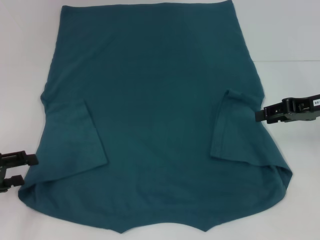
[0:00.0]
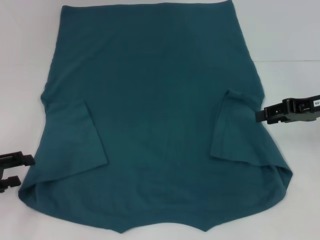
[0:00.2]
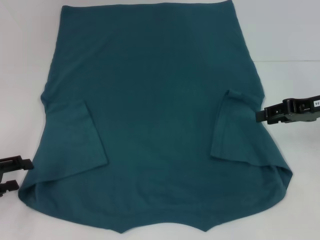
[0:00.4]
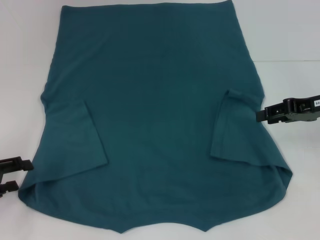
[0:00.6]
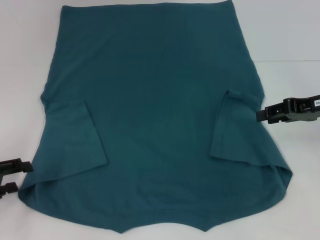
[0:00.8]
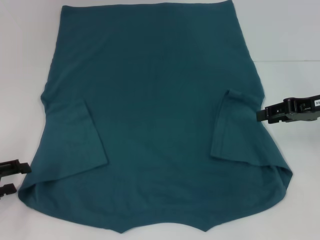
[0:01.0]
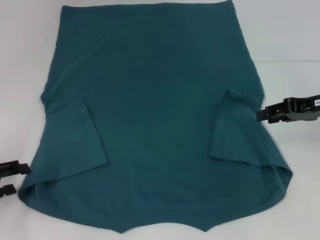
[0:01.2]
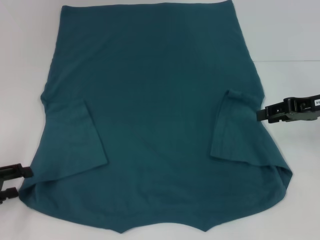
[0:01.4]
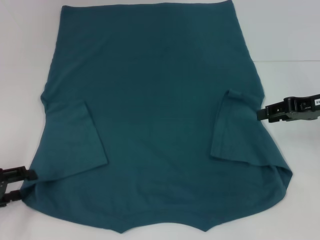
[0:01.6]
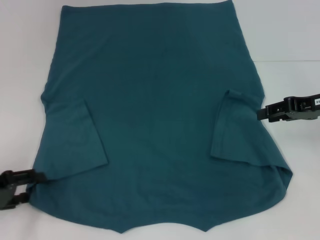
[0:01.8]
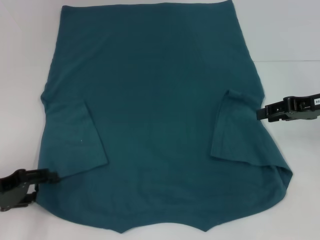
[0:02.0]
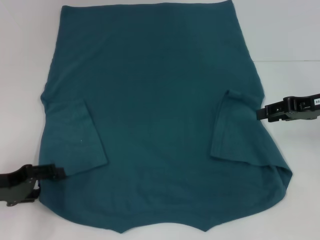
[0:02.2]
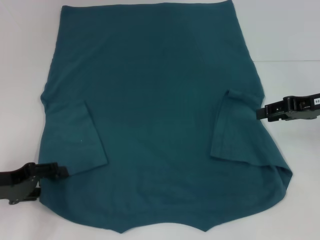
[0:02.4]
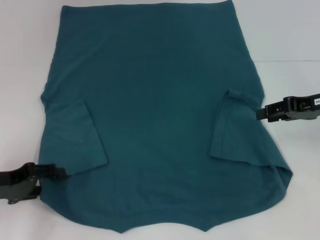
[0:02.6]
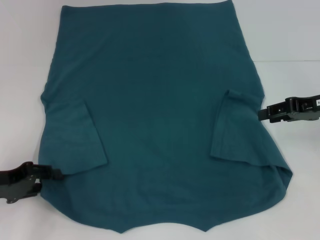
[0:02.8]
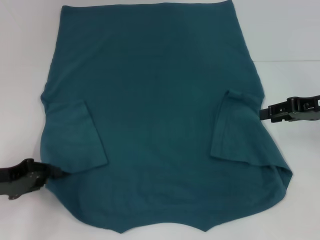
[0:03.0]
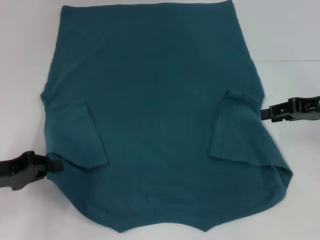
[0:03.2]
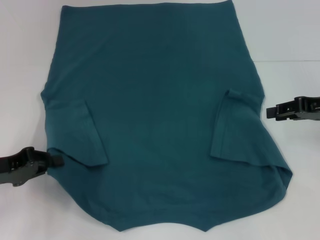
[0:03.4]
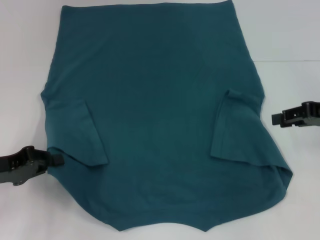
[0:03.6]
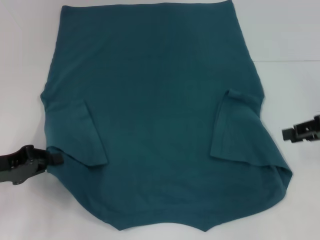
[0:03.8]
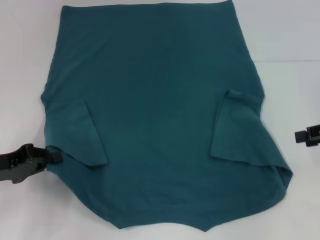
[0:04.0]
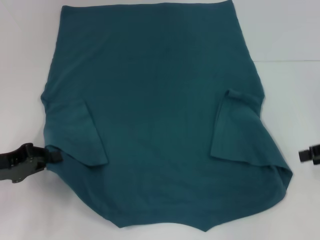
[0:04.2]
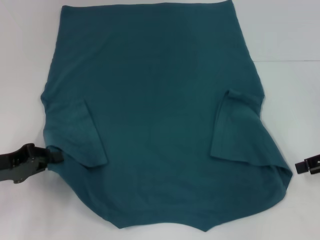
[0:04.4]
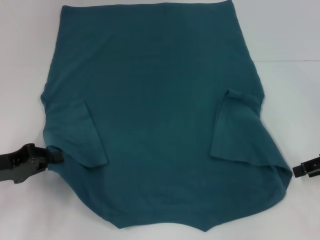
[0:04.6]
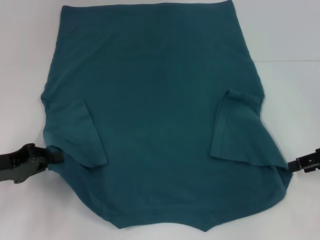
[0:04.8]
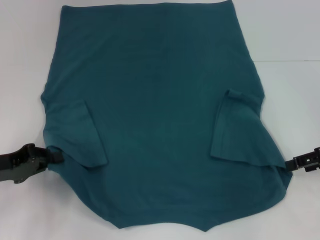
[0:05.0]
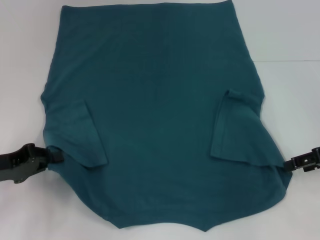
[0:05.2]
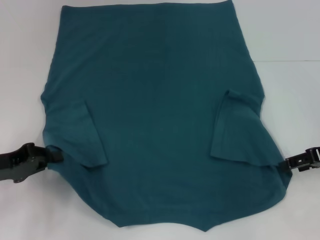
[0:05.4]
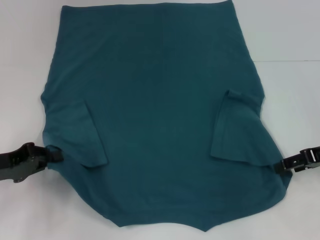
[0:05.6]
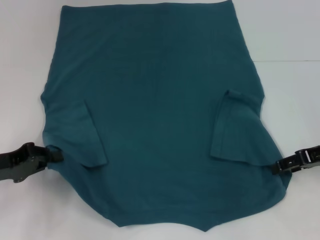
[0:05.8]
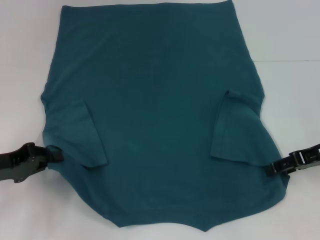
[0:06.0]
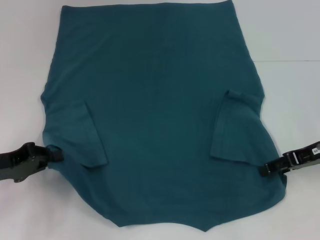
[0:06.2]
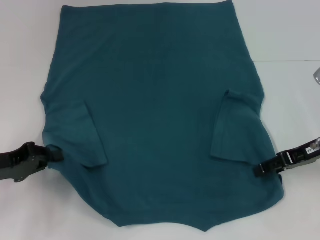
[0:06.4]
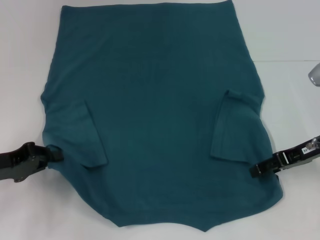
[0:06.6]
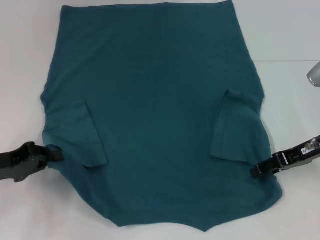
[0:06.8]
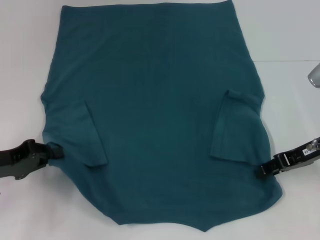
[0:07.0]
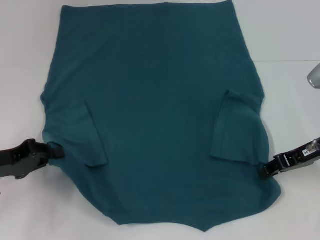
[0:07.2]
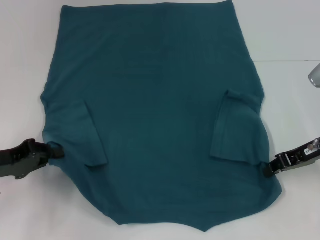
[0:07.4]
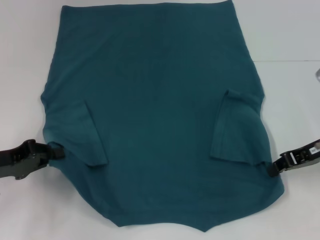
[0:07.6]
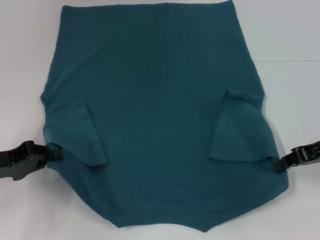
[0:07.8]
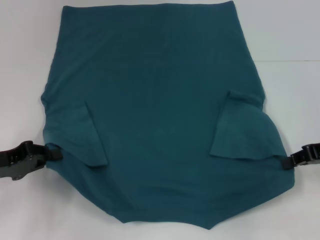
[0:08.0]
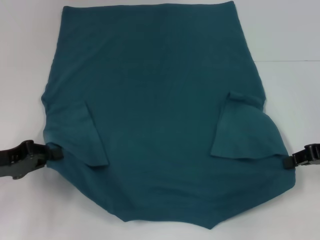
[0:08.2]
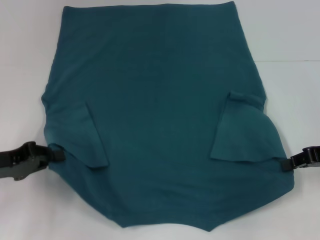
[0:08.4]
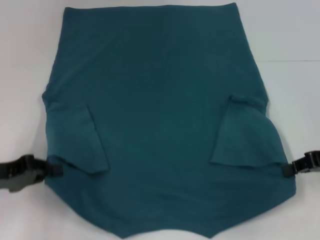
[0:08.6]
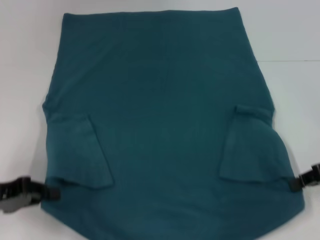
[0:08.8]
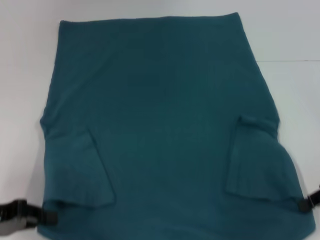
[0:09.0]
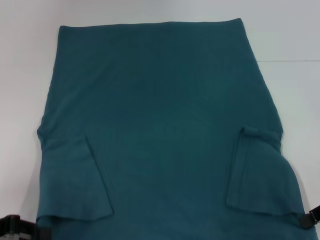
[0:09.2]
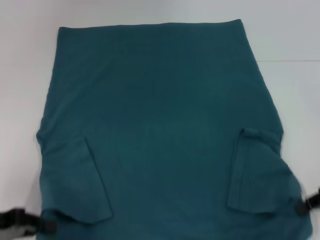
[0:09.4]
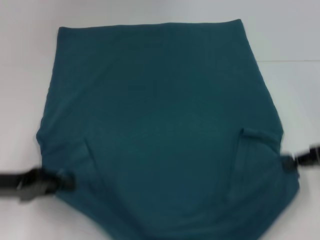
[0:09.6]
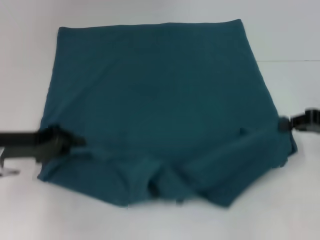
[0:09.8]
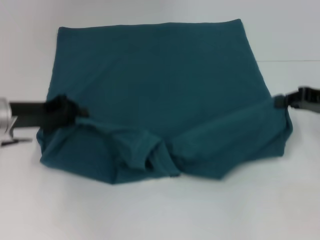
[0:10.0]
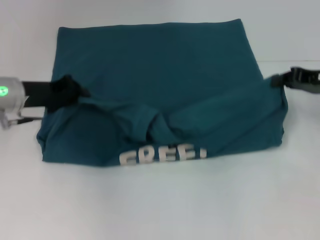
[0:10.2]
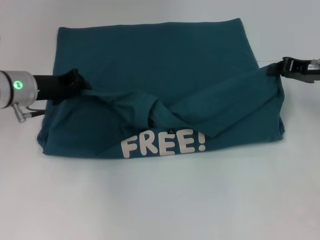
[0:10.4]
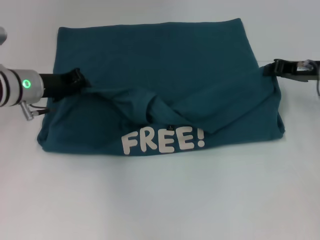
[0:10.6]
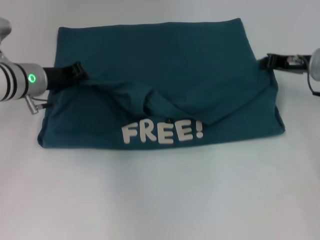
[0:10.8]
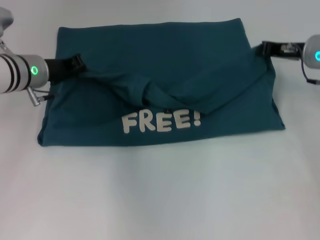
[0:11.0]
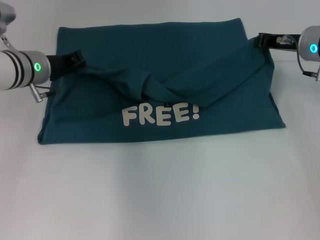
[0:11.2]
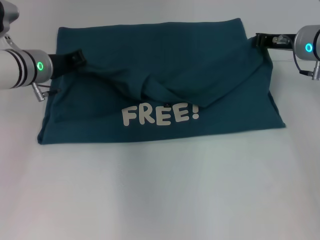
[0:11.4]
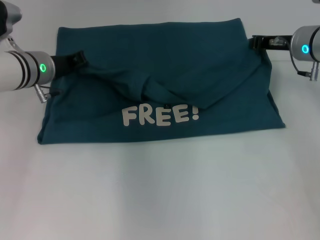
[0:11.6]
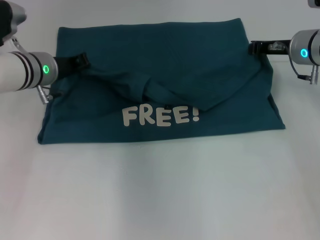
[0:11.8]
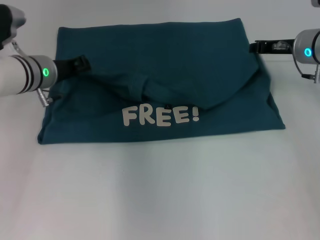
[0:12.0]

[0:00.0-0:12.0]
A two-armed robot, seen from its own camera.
Step, 0:00.0 to 0:03.4: Grab the bottom left corner with your left hand.
Step, 0:03.6 to 0:08.0: Grab the bottom right corner with your right hand.
0:00.0 to 0:03.0: The grippers stay close to where they were, moving slightly.
0:03.0 to 0:04.4: The right gripper shifts by some 5 cm. The left gripper closes.
0:04.4 to 0:06.0: The right gripper goes some 5 cm to the left.
0:06.0 to 0:07.6: The right gripper closes its fingers.
0:07.6 to 0:09.0: The right gripper heads backward, covering approximately 5 cm.
0:09.0 to 0:10.4: The left gripper heads forward and to the right, covering roughly 20 cm. The right gripper travels forward by roughly 10 cm.
0:10.4 to 0:12.0: The right gripper moves to the left and forward, approximately 10 cm.

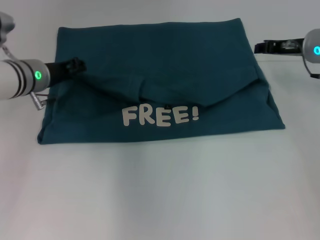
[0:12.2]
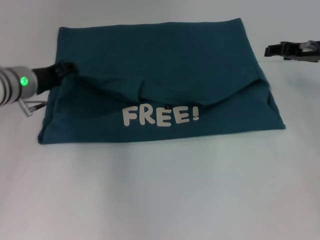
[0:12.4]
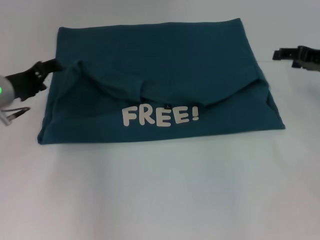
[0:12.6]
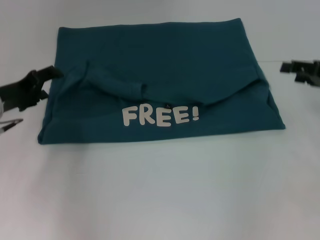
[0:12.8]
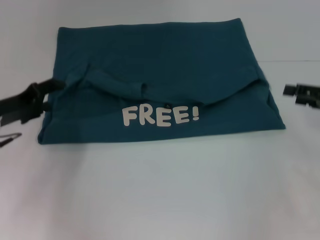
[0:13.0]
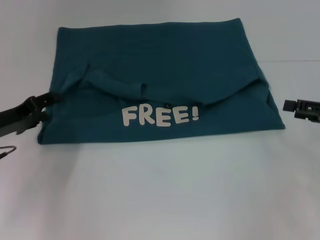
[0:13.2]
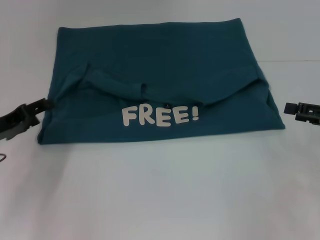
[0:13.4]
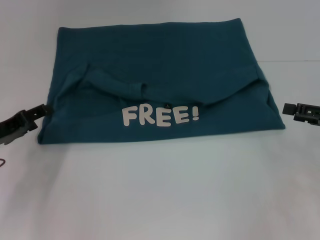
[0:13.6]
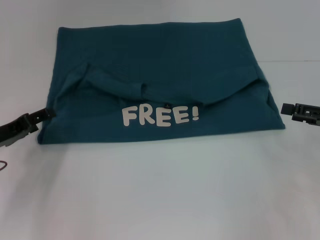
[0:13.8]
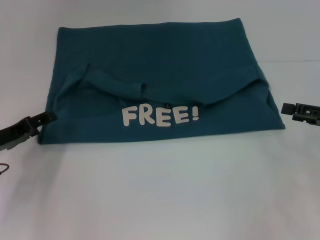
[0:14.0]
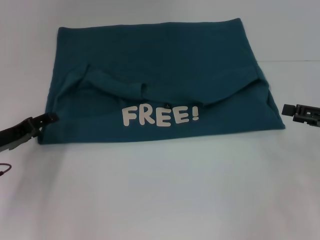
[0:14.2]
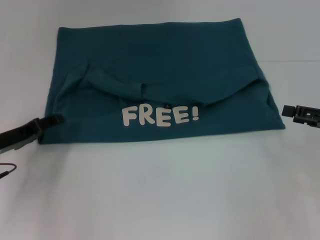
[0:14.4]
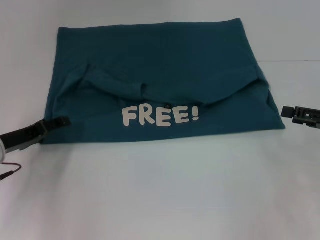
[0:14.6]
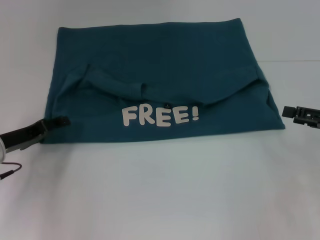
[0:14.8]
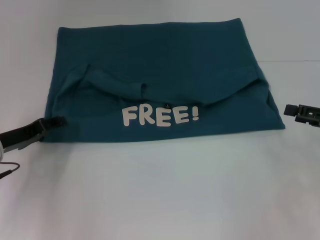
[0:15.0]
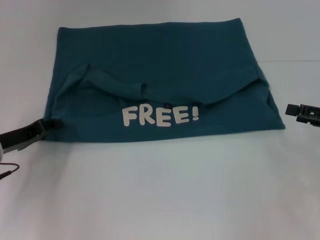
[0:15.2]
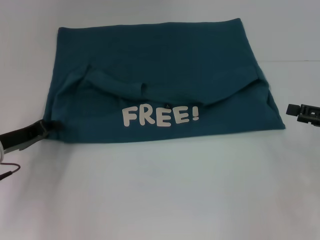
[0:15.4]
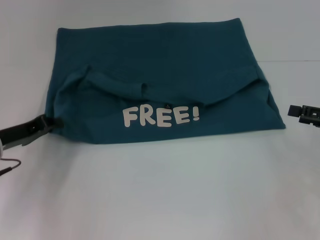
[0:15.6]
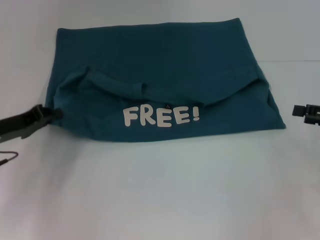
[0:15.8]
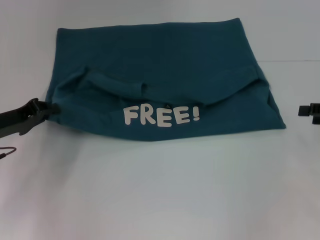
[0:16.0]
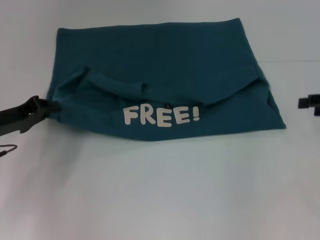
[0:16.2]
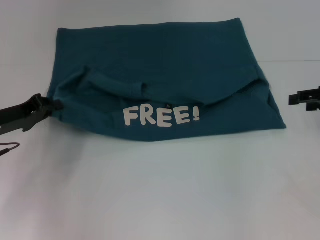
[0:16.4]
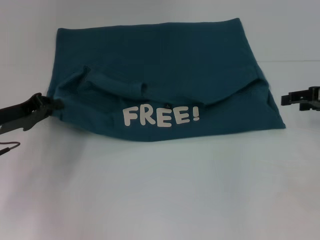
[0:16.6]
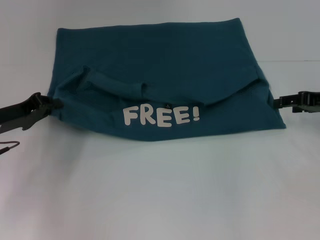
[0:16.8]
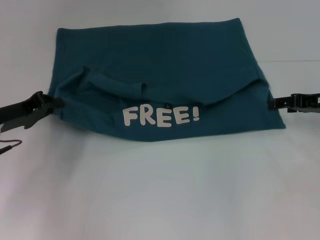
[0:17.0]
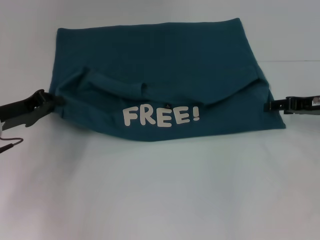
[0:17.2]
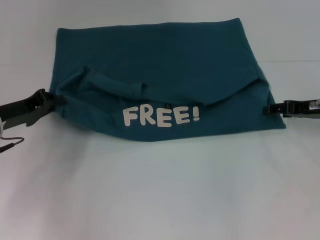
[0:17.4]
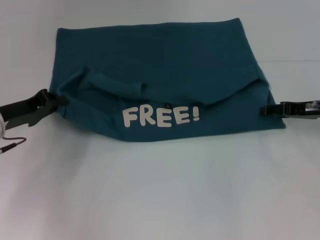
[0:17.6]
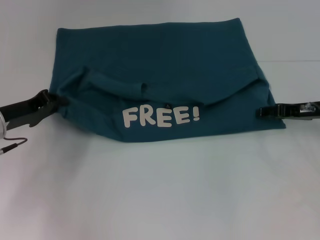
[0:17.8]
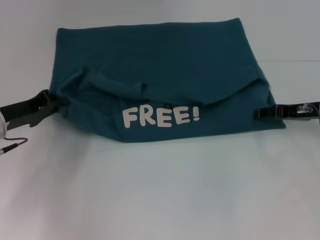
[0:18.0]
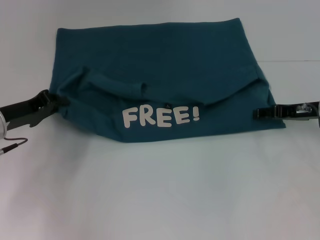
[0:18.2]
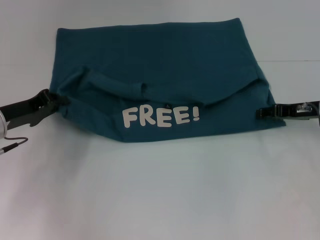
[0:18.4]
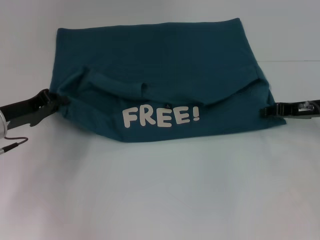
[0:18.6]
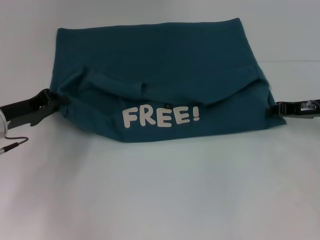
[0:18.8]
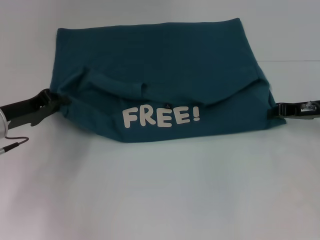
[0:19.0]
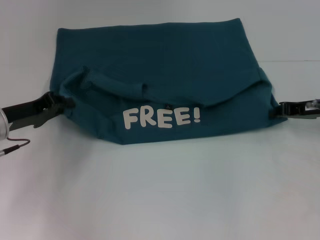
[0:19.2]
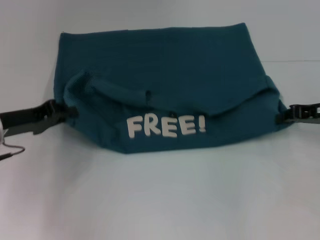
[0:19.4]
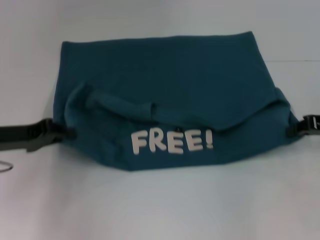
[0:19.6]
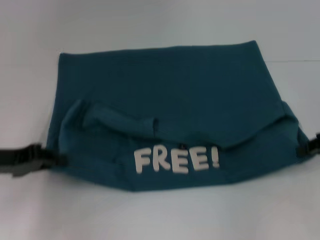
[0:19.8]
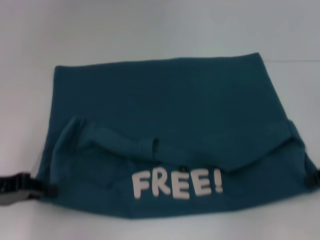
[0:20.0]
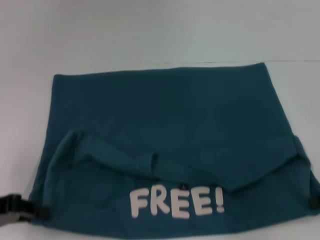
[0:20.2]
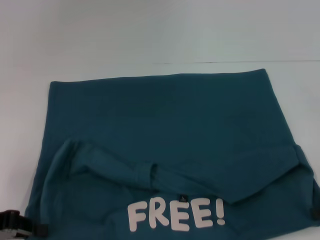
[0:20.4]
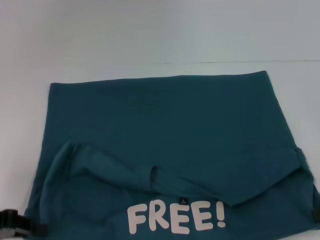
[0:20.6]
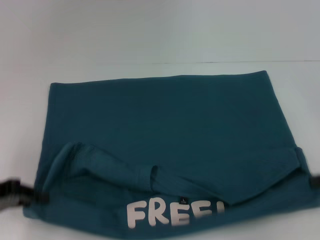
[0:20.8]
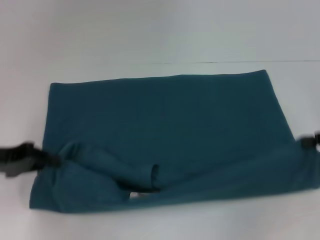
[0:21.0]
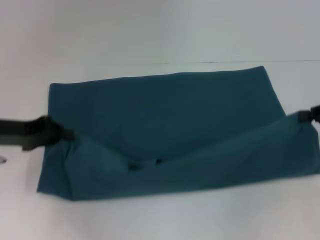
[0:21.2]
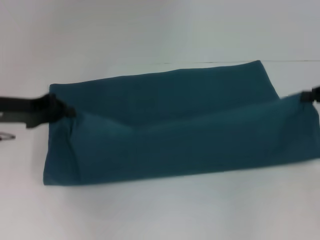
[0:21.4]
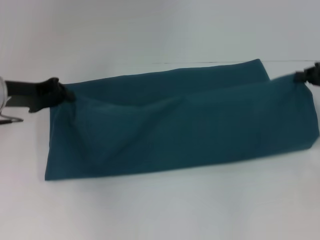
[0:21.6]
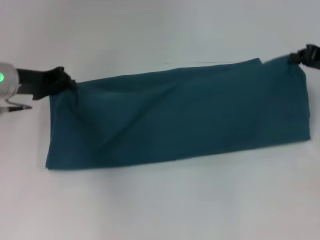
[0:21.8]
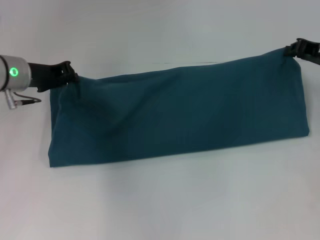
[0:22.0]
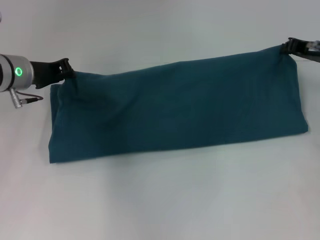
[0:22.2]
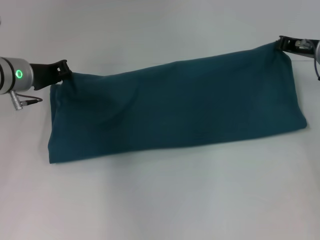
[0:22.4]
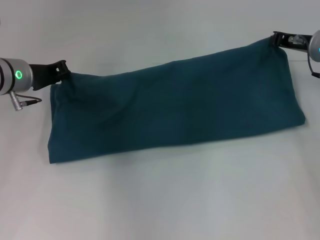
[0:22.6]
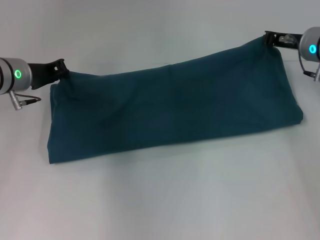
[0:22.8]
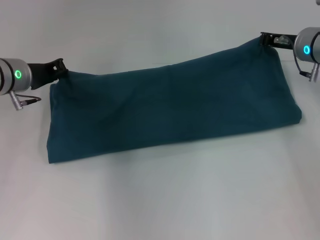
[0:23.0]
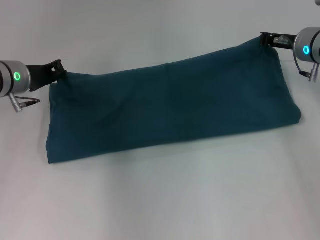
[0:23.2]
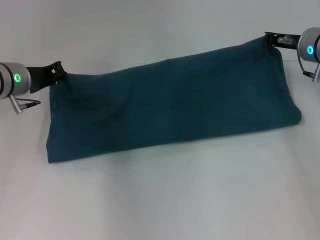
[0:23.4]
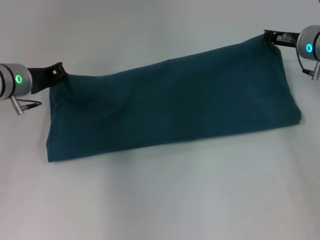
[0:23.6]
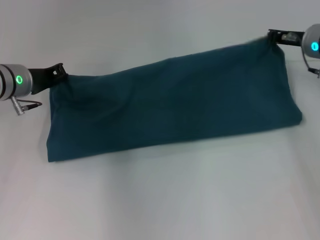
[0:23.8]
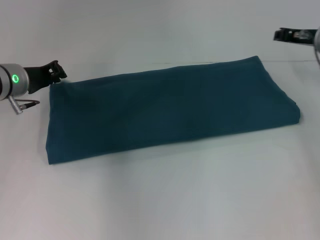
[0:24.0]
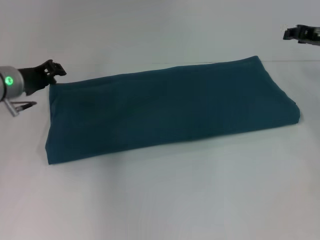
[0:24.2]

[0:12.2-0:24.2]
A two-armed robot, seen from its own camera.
Step, 0:12.4 to 0:20.4: Pull the clothes with your left hand.
Step, 0:12.4 to 0:20.4: Pull the clothes with your right hand.
Step, 0:20.6 to 0:24.0: Fold the clothes to the right.
0:12.2 to 0:13.8: The right gripper shifts some 20 cm backward and to the right, and opens up, while the left gripper heads backward and to the left, covering approximately 15 cm, and opens its fingers.
0:13.8 to 0:15.2: The grippers stay close to where they were, moving slightly.
0:15.2 to 0:16.6: The left gripper closes. Meanwhile the right gripper moves forward, about 5 cm.
0:16.6 to 0:18.2: The right gripper shifts approximately 5 cm to the left and downward.
0:18.2 to 0:19.8: The right gripper goes approximately 10 cm to the right and backward, and closes its fingers; the left gripper heads backward, covering roughly 5 cm.
0:21.2 to 0:22.6: The left gripper travels forward and to the right by about 10 cm; the right gripper moves forward and to the left, roughly 15 cm.
0:22.6 to 0:24.2: The grippers stay close to where they were, moving slightly.
